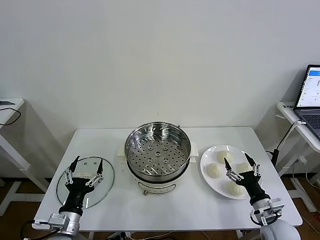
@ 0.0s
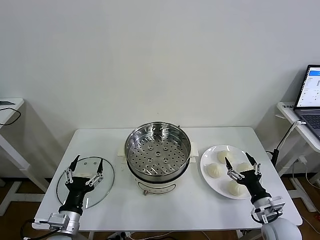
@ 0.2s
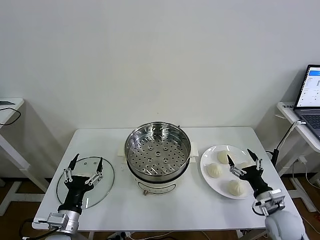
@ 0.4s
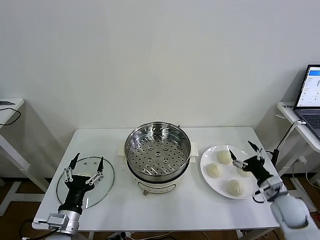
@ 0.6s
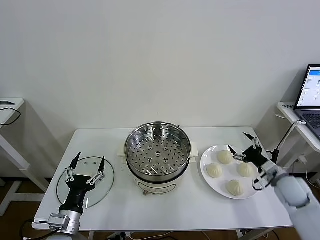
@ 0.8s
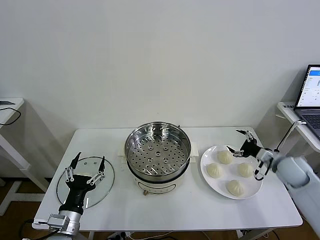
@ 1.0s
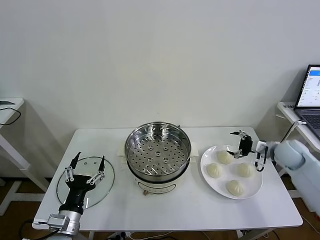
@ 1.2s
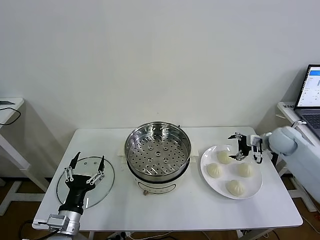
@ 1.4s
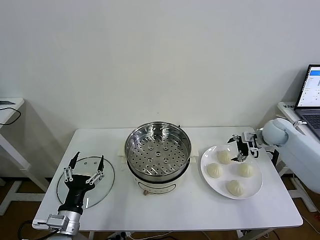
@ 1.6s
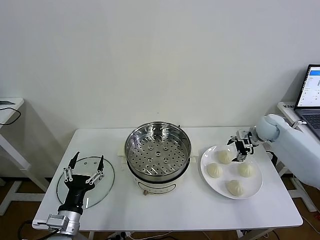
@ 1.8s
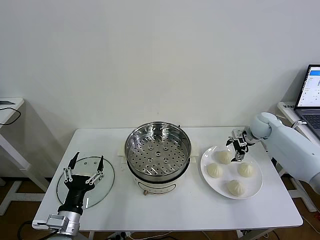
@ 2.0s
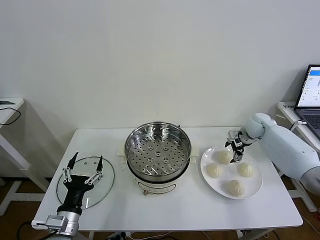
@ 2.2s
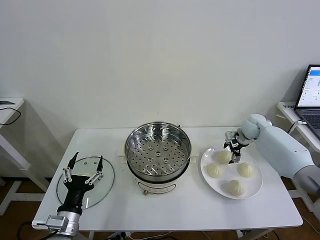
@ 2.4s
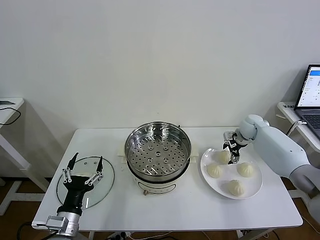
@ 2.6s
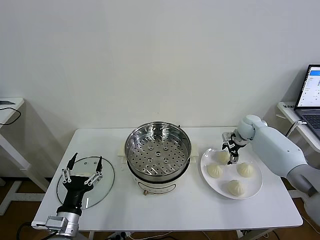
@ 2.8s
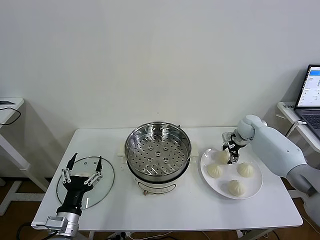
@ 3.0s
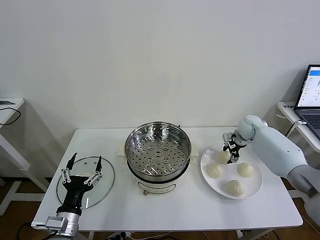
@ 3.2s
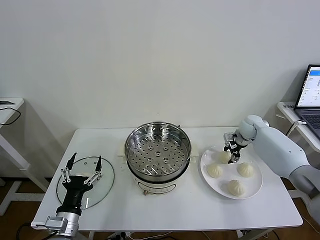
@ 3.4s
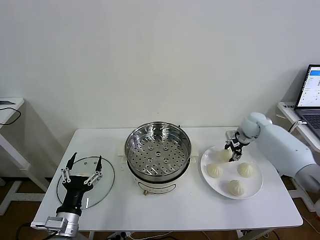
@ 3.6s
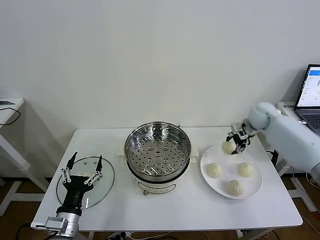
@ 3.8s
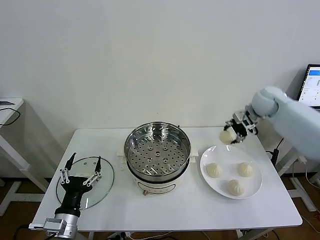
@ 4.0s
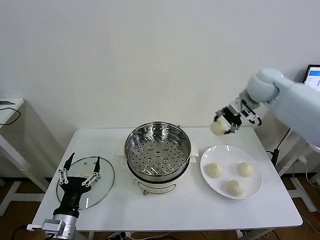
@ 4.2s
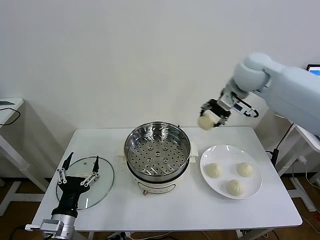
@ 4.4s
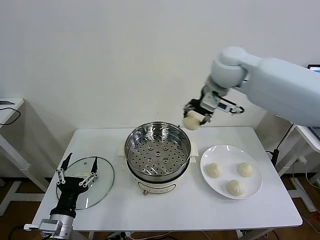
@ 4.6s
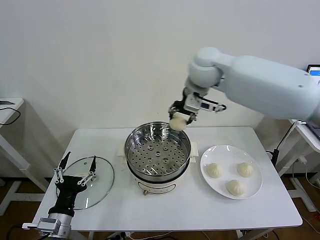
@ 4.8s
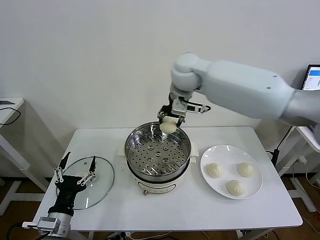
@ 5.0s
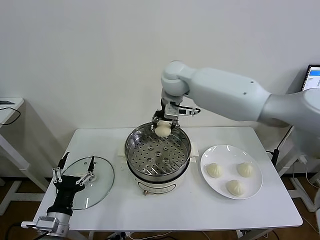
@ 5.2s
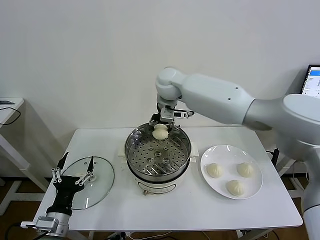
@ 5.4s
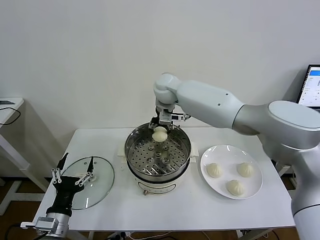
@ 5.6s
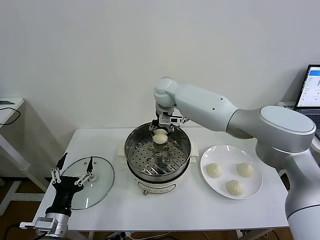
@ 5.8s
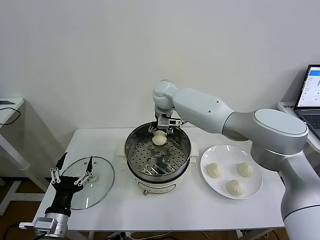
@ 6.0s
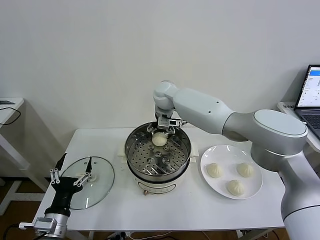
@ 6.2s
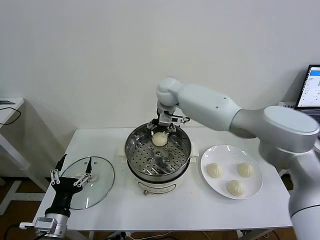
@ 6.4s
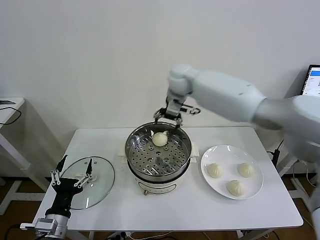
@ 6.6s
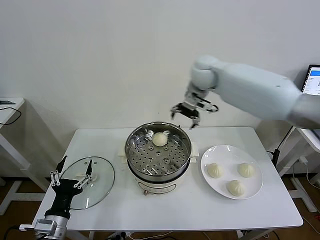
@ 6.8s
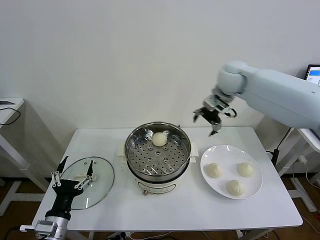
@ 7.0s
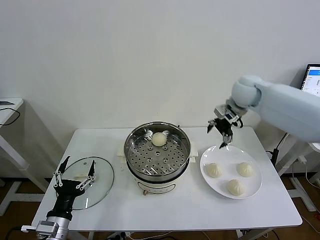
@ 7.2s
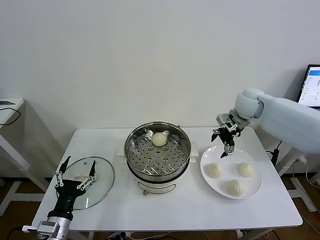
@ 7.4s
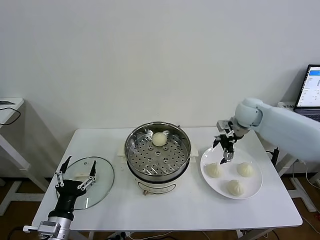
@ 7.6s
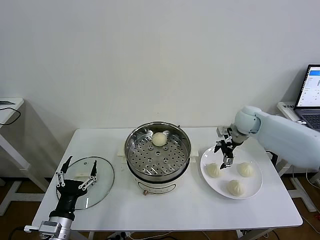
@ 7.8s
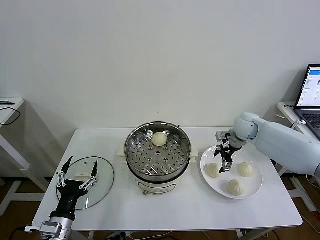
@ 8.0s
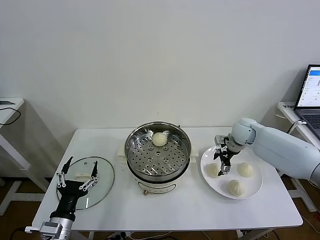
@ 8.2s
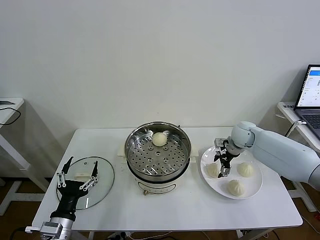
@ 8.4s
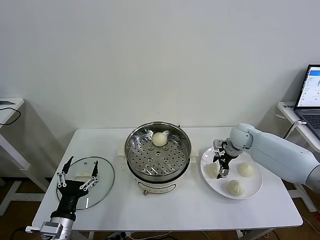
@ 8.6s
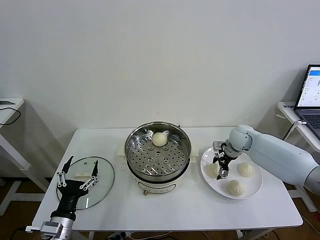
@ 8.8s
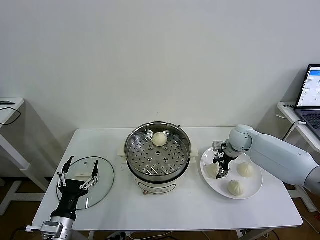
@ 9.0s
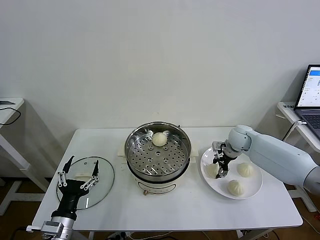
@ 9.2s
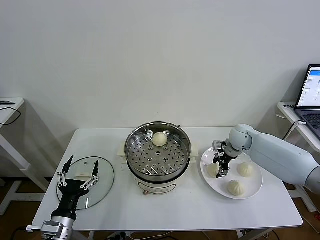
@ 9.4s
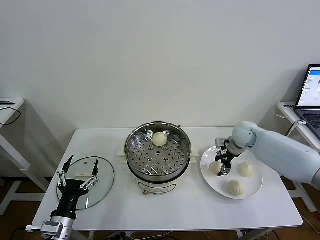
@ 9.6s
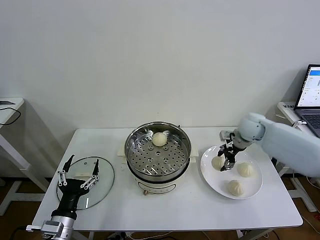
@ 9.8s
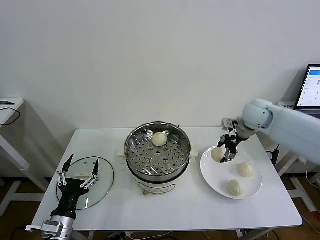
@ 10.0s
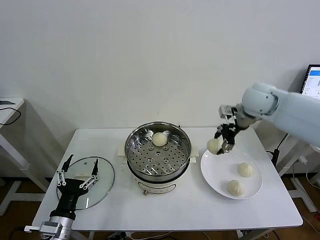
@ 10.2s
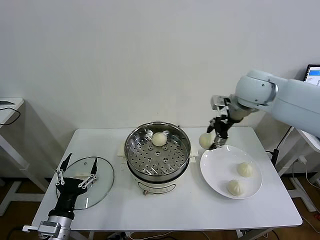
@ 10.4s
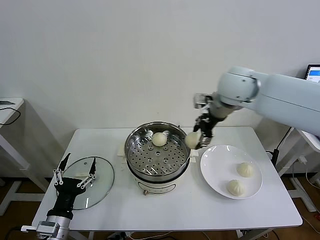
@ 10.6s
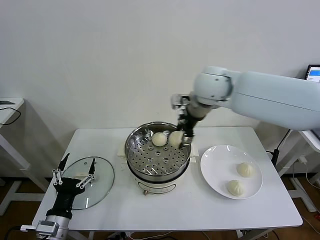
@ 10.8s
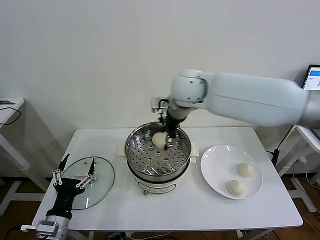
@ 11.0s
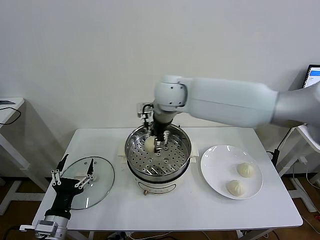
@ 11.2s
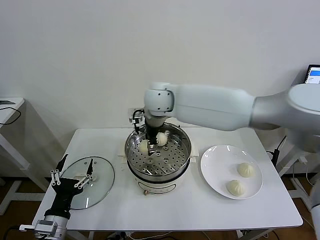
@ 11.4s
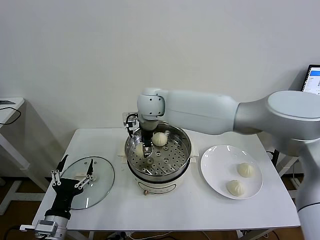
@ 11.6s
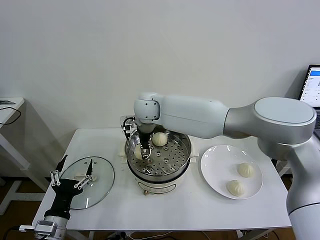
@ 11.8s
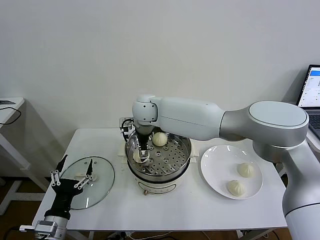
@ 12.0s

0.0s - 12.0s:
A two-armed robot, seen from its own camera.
Task of the whole recording: take steamed baozi put them in steamer then cover it.
Step, 0.0s - 3.0s: Grasp the baozi in the plate with right gripper.
Step, 3.4s - 6.2s: Place the baozi on the steamer with right gripper.
Step, 6.4s - 9.2s: Grasp the baozi in the plate with right gripper.
1.6s - 3.0s: The right gripper heads forward, covering roughly 5 cm, and closes up.
3.0s - 4.4s: The right gripper moves upward and to the left, approximately 35 cm.
4.4s - 6.0s: The right gripper goes some 25 cm to the left, downward and forward.
6.0s - 7.6s: The right gripper goes some 30 cm to the right, and opens.
7.6s - 9.0s: The right gripper shifts about 10 cm downward, and closes.
9.0s - 10.4s: The right gripper moves upward, some 25 cm.
10.4s - 12.0s: The right gripper moves to the left, about 30 cm, and opens up.

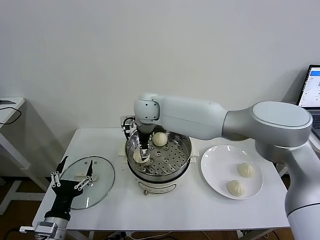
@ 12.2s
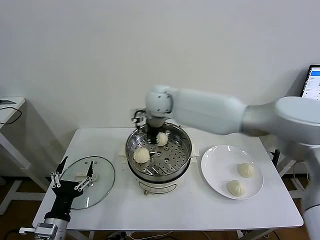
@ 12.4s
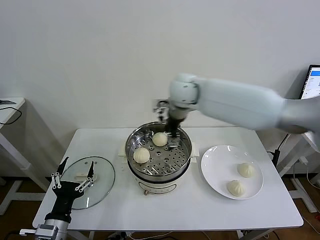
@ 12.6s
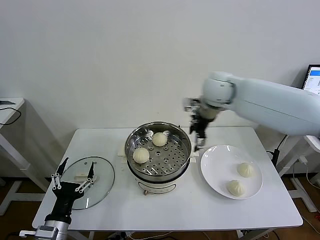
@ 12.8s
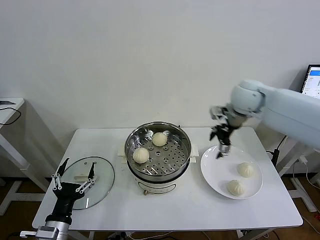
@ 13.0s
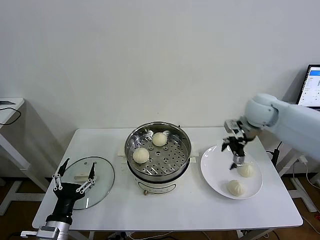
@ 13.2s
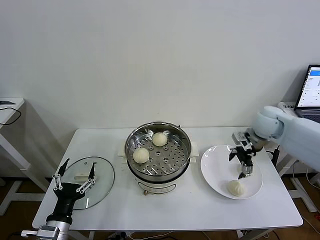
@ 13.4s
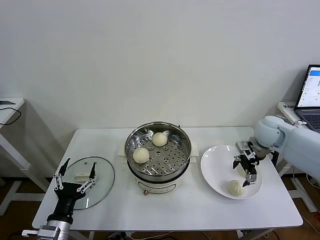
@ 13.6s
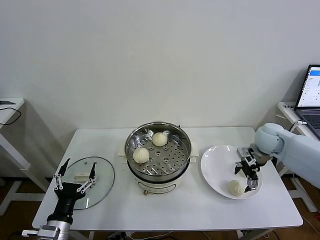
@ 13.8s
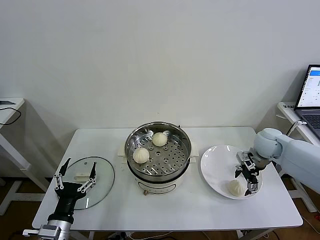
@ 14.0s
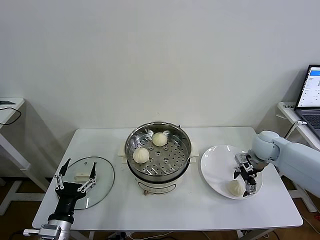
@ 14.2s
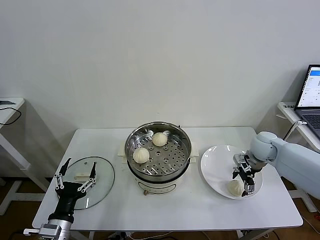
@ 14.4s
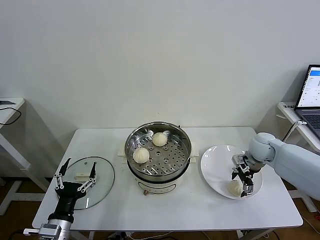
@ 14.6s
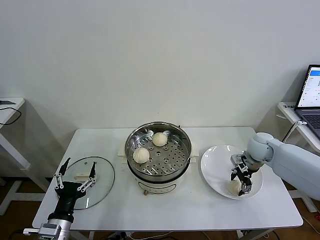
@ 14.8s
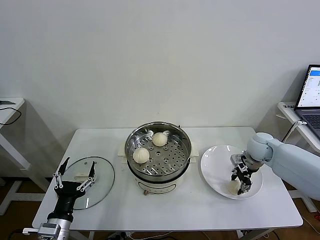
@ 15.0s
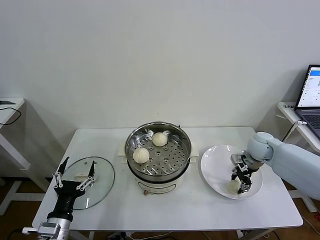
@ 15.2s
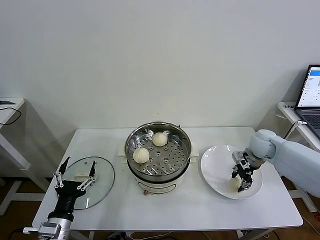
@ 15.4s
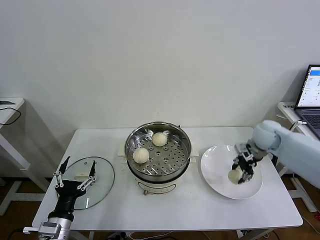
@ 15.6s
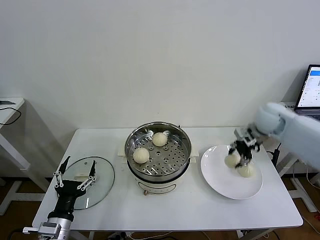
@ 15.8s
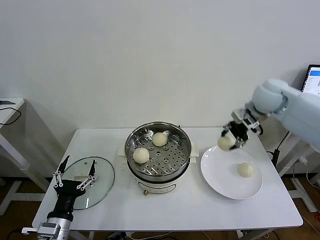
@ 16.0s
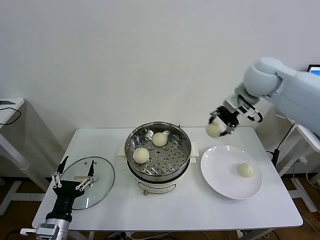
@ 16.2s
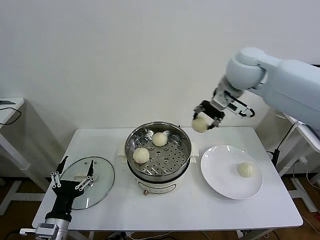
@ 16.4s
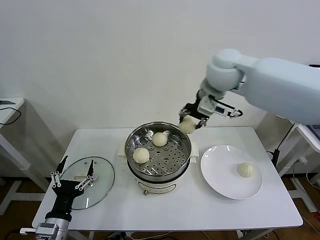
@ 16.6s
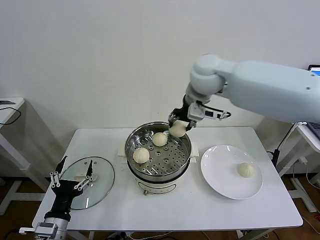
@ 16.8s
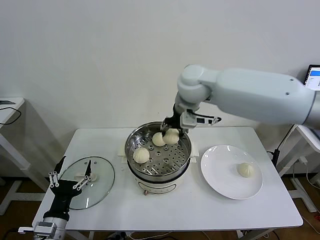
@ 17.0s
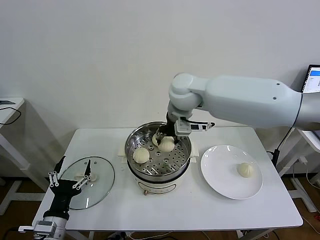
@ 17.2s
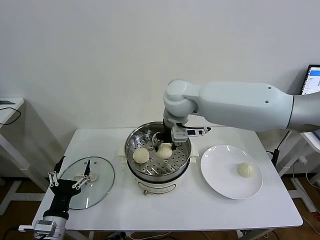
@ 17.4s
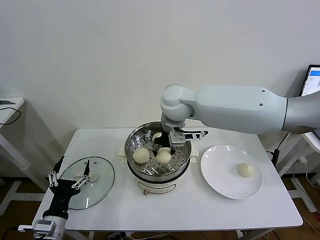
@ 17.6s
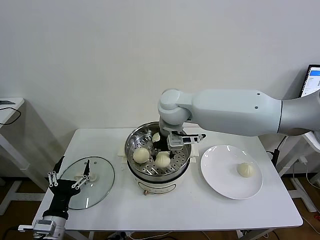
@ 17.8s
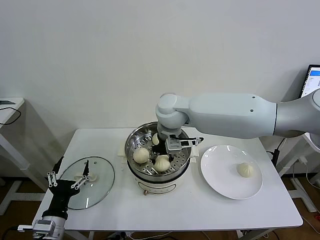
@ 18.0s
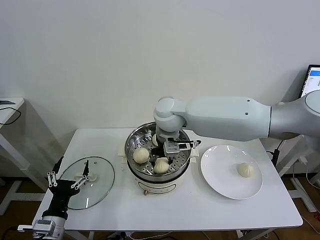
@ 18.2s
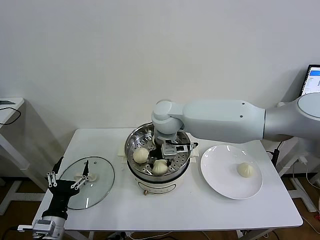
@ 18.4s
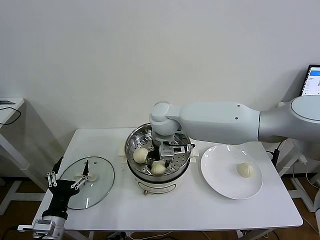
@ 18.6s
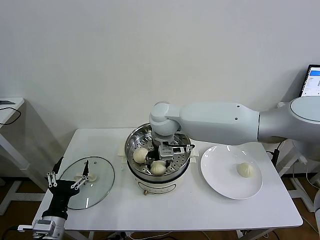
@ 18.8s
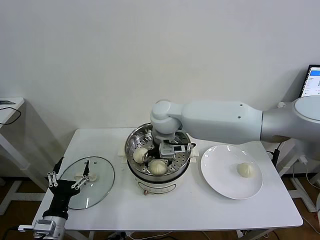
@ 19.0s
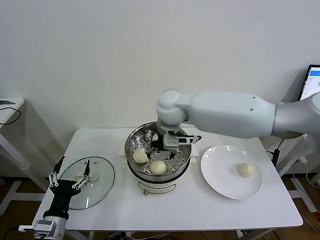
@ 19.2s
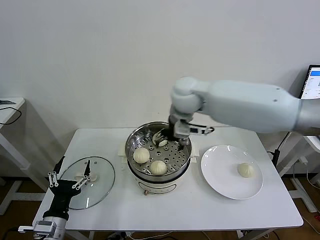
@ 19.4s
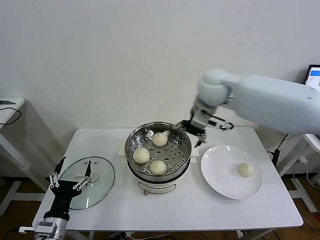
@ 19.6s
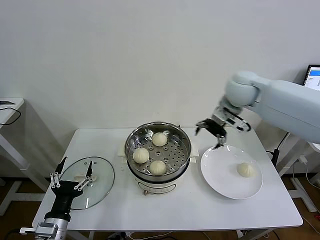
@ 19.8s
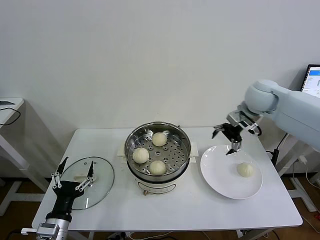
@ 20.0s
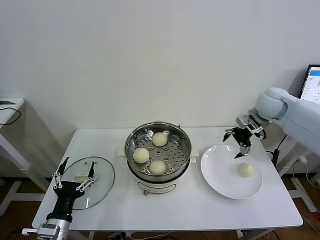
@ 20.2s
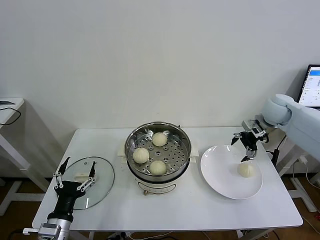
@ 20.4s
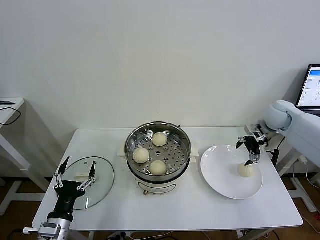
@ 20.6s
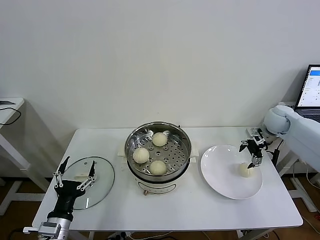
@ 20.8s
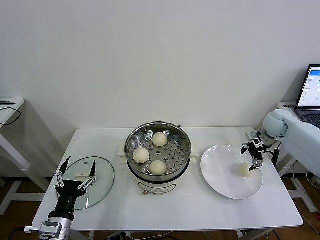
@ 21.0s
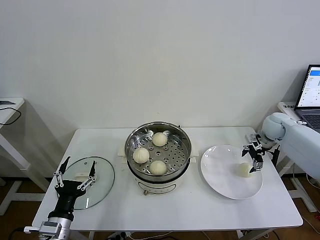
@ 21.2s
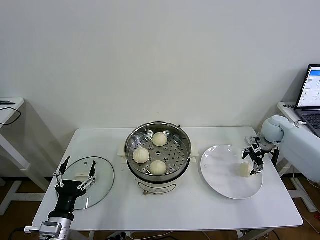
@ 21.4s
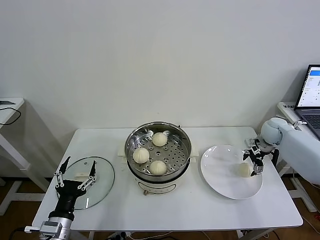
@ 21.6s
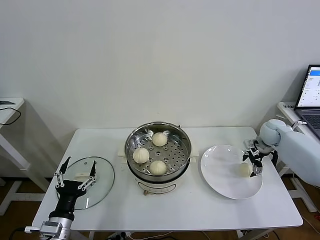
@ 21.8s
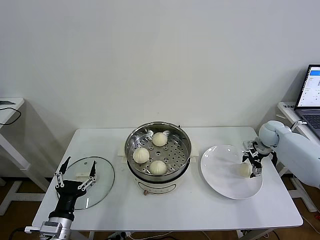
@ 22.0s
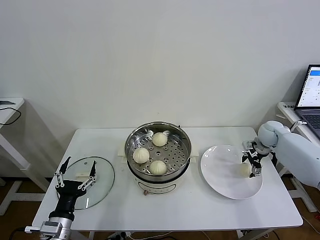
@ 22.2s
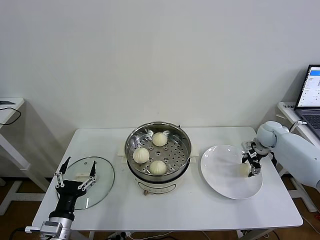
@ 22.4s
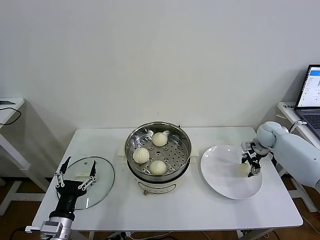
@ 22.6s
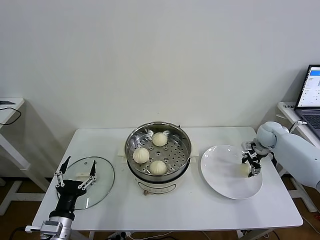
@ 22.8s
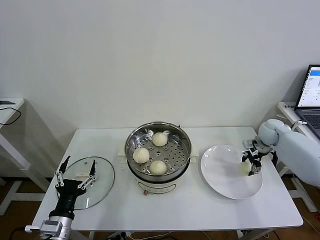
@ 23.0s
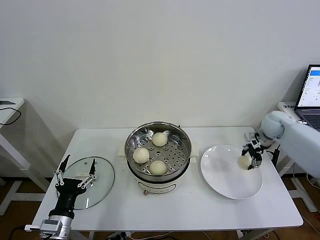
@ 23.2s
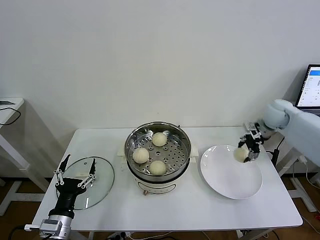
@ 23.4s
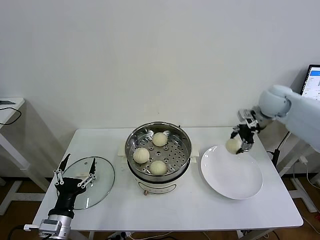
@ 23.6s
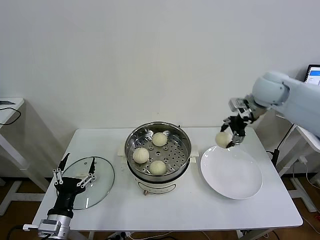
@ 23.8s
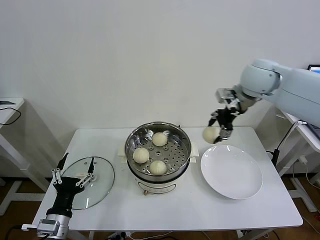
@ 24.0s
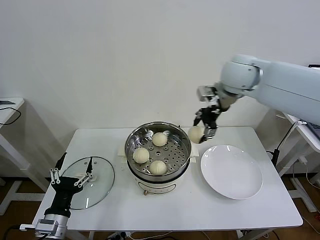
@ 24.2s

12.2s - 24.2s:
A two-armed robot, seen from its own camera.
Task of the whole recording: take steamed baozi put them in steamer then cover it.
Step, 12.2s - 15.2s: Grasp the baozi in the plate with right gripper.
Step, 15.4s - 18.8s: Place the baozi on the steamer with right gripper.
Step, 19.2s - 22.8s: Grasp the baozi in the plate with right gripper.
12.2s - 13.8s: The right gripper goes some 40 cm to the right.
13.8s - 15.2s: The right gripper closes.
15.2s - 16.6s: The right gripper travels upward and to the left by some 35 cm.
16.6s - 18.2s: The right gripper goes some 20 cm to the left and downward.
18.2s - 19.8s: The right gripper travels to the right by roughly 25 cm, and opens.
19.8s - 21.2s: The right gripper shifts about 25 cm to the right and downward.
21.2s - 22.6s: The right gripper closes its fingers.
22.6s - 24.2s: The right gripper shifts some 35 cm upward and to the left.
